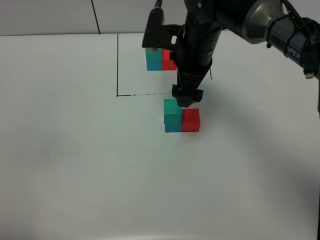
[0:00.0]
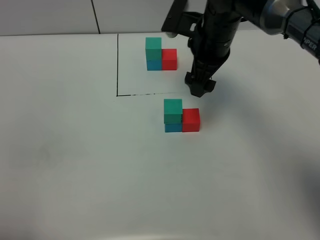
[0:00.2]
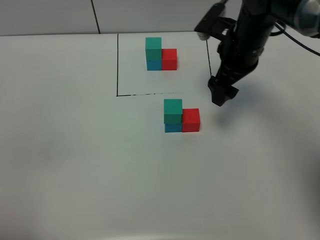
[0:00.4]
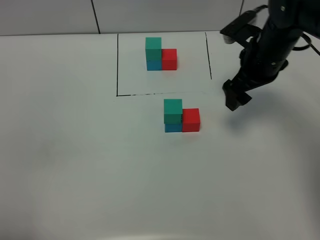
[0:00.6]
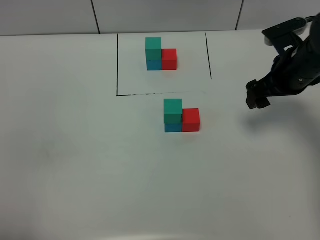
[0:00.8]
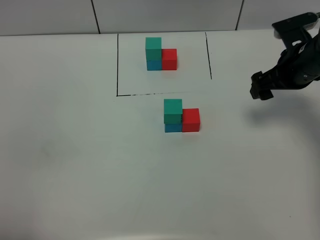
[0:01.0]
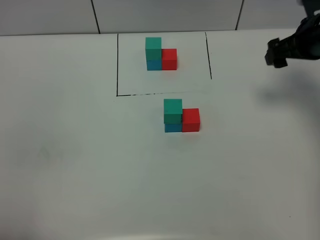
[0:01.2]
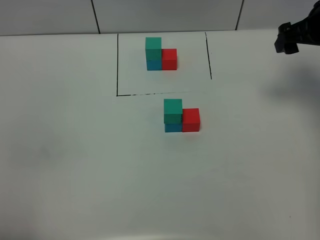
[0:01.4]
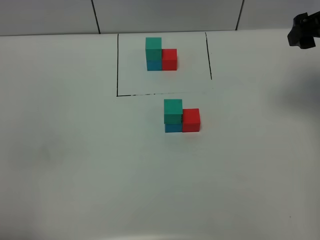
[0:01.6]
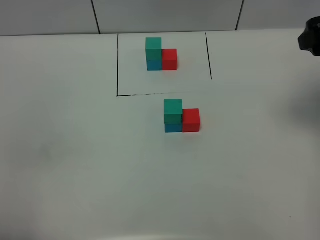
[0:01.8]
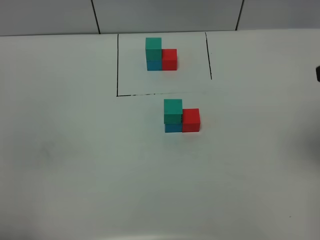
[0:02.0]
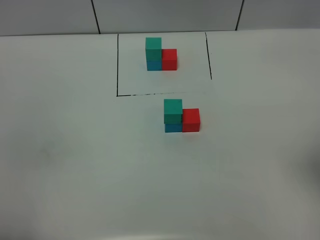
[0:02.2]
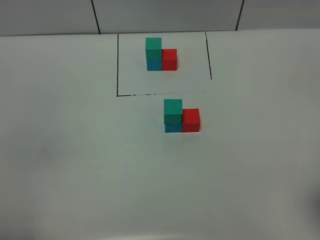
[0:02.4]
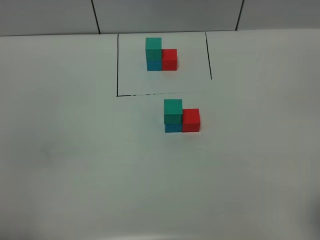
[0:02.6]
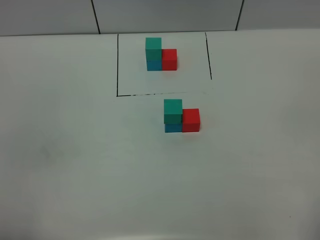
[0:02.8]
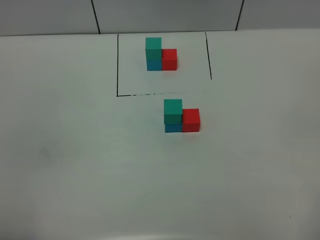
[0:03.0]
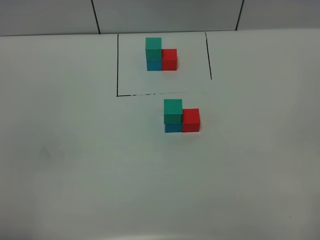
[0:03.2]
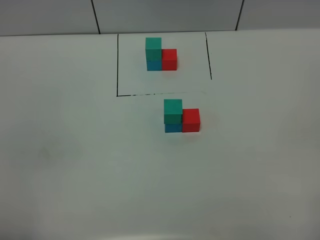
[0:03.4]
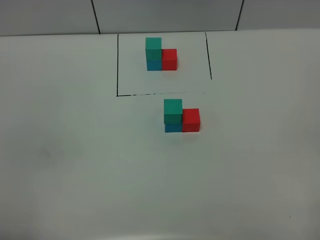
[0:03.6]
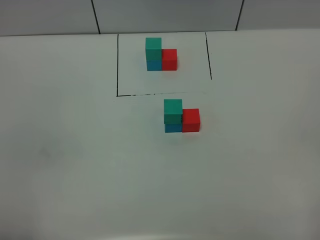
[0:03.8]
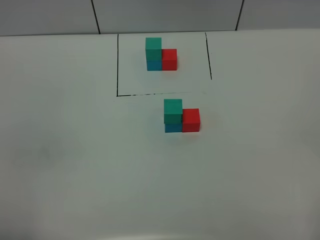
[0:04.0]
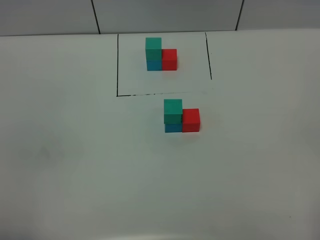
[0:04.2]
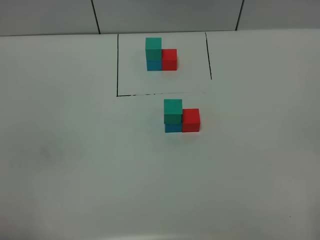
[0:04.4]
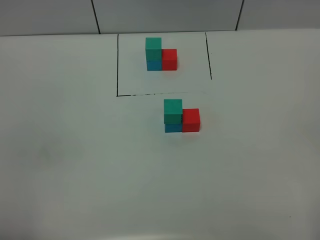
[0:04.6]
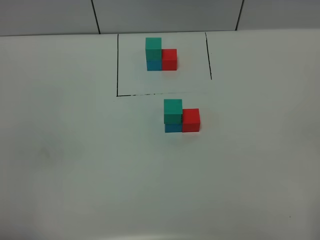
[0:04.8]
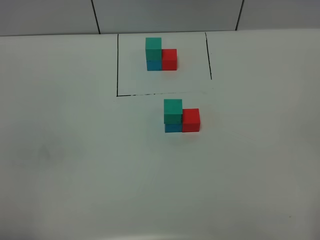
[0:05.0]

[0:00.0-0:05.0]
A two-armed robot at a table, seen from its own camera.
Task of the whole recording: According to the building block template in front, assemble the scattered blocks together.
0:00.0 to 0:01.6: The right gripper shifts some 20 cm to the right.
0:01.6 to 0:03.4: The right gripper heads backward, covering approximately 35 cm.

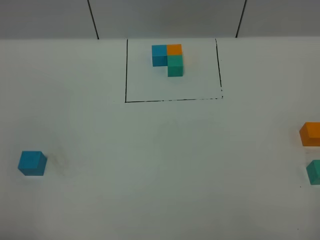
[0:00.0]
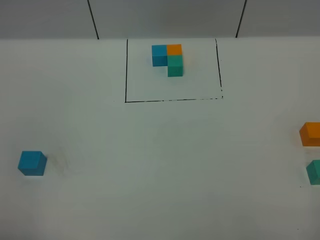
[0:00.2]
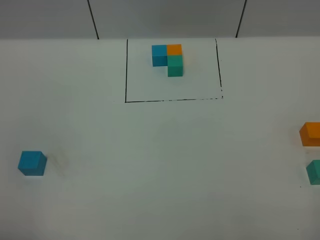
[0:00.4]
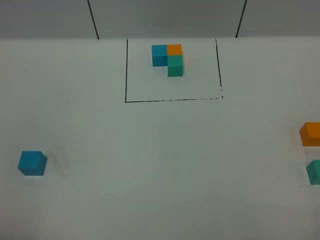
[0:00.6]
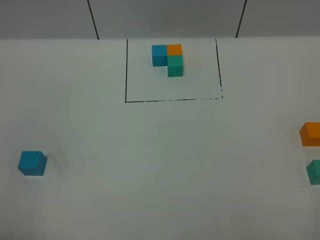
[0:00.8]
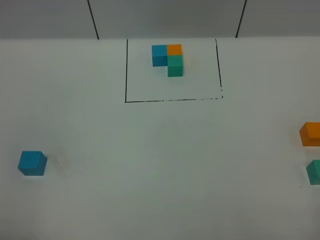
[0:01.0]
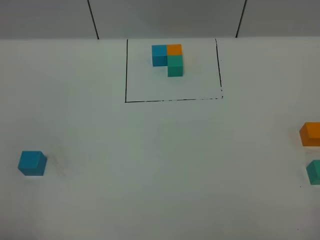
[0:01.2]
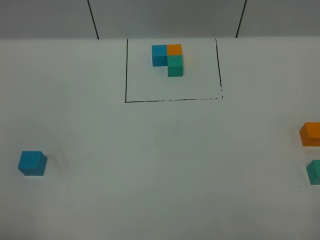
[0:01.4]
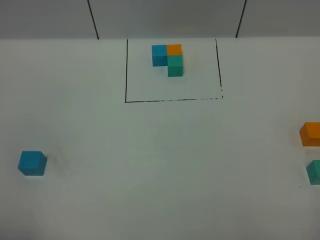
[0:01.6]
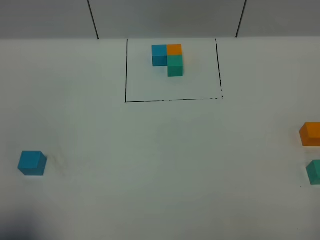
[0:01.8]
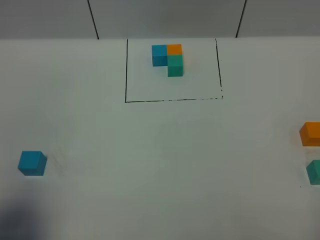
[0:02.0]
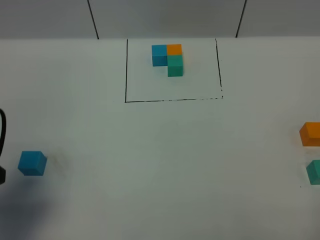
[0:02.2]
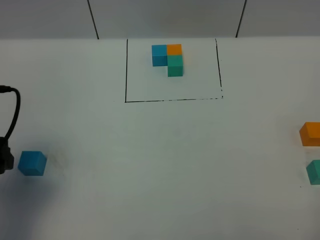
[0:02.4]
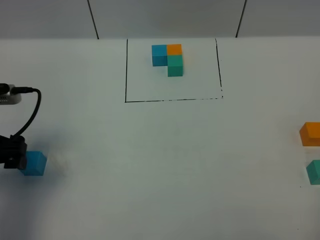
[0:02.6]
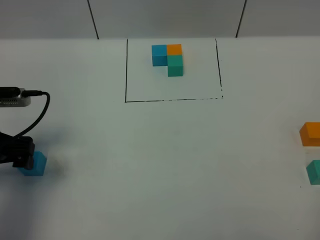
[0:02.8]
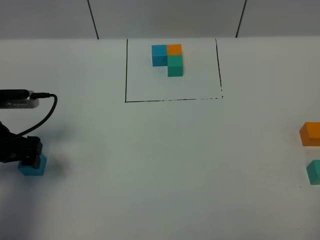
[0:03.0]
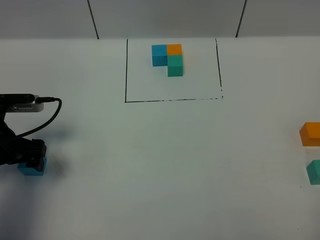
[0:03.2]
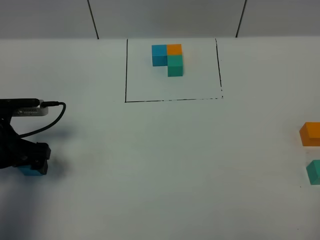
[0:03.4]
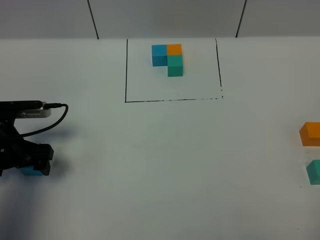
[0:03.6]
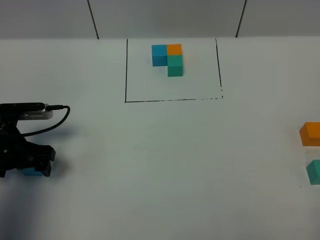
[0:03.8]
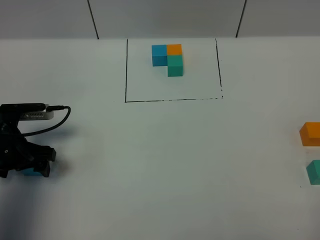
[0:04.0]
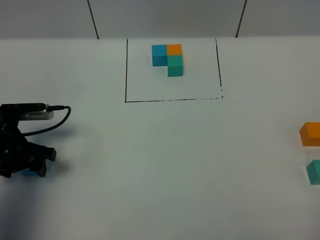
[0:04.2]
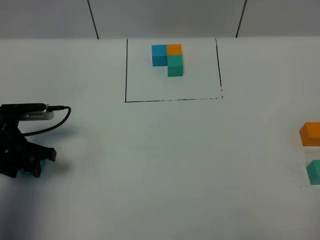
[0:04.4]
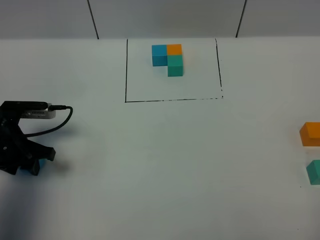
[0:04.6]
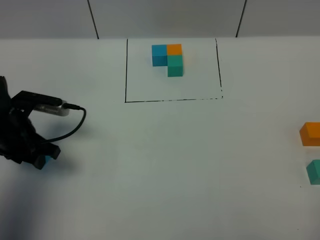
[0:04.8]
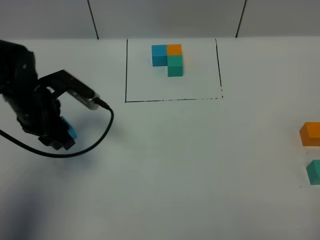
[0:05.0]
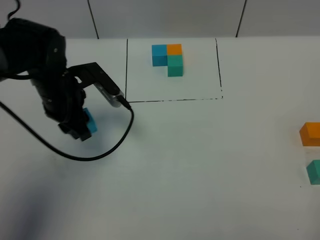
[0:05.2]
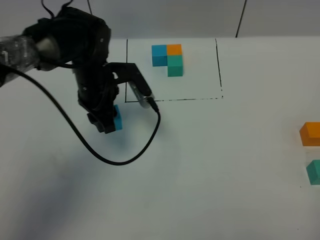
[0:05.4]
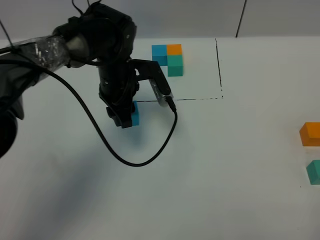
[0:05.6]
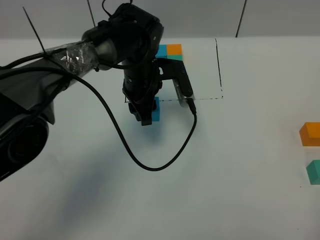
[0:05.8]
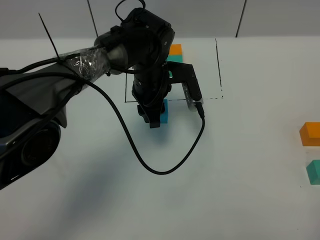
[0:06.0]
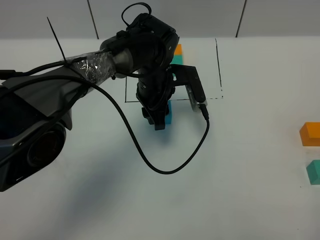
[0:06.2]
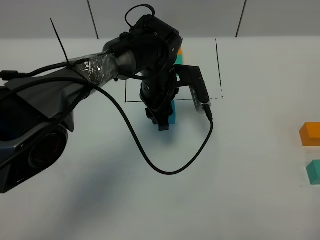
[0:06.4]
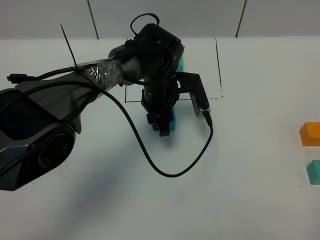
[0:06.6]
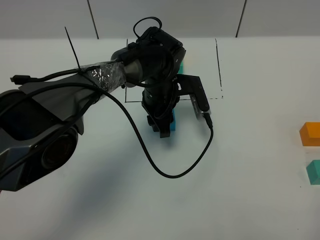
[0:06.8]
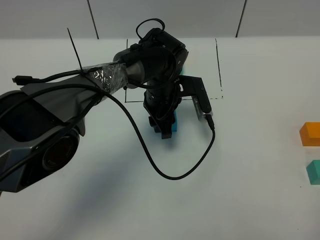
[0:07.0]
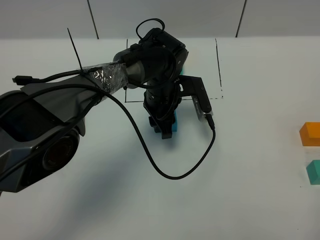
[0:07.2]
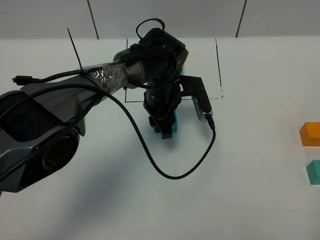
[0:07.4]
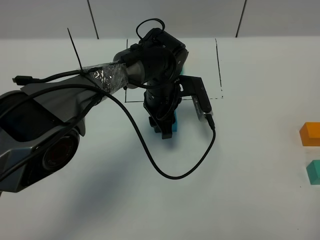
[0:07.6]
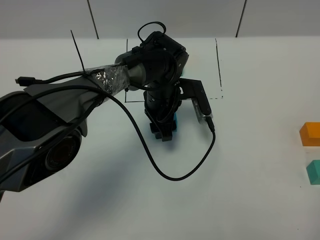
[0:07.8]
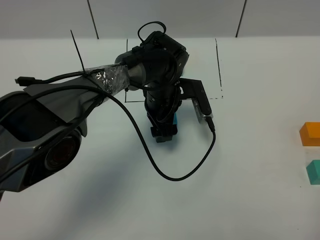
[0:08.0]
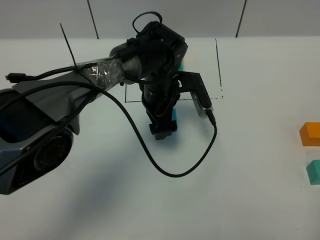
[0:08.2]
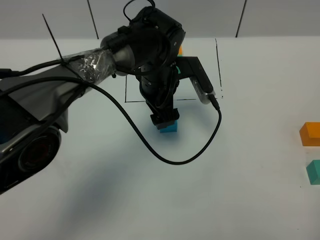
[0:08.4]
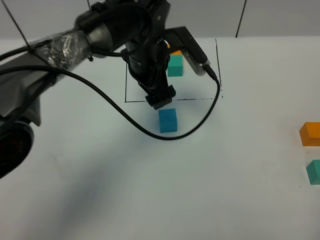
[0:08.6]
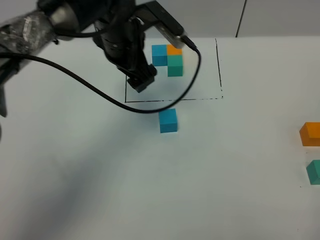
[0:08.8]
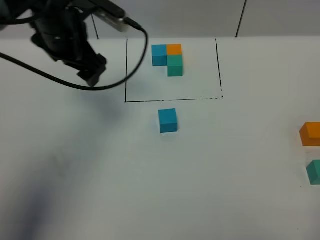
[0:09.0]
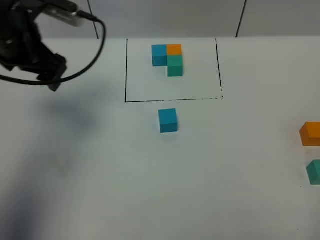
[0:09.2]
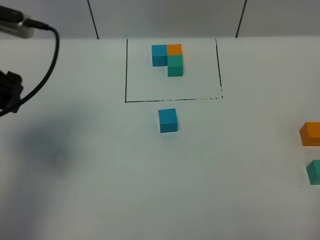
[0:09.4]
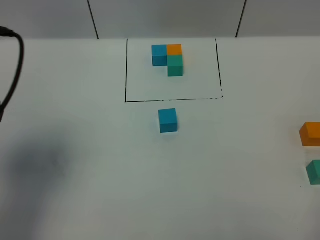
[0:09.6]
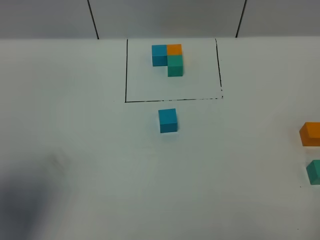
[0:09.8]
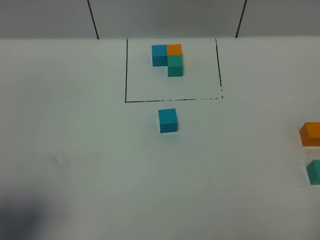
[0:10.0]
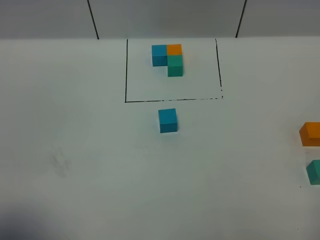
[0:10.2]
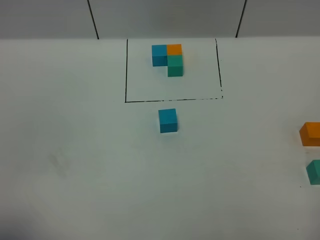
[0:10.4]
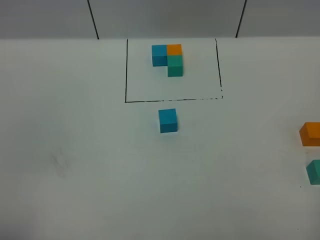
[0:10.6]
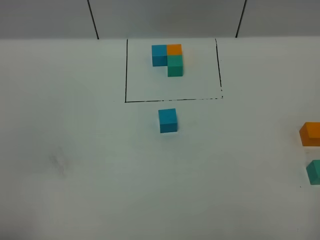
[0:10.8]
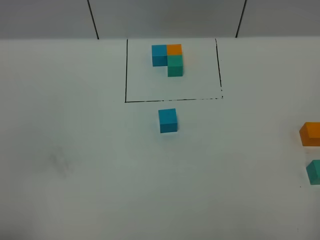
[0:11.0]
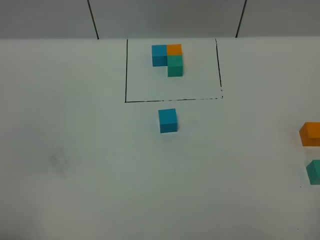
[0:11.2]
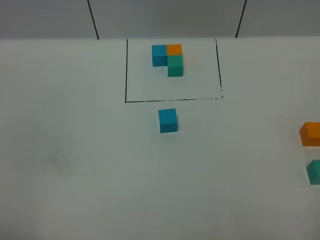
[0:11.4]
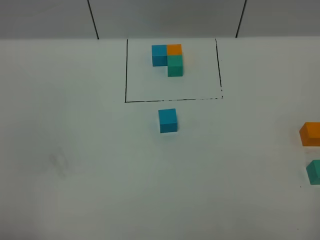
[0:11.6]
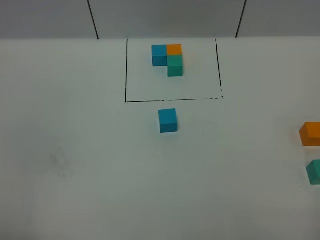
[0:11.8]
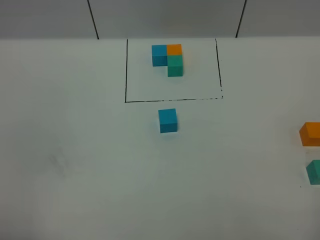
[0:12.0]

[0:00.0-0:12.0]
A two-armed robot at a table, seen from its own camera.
Task of the whole recording: According to the building block template in front, assemble the scattered blocks together.
Step, 0:00.0 to 0:07.6: Put the blue build block in the center of the table.
0:00.0 to 0:01.6: Both grippers stay put.
0:01.6 to 0:03.0: The left gripper shifts some 25 cm forward and downward.
0:03.0 to 0:04.4: The left gripper travels downward by approximately 5 cm, and closes up.
0:04.4 to 0:06.0: The left gripper heads to the right and forward, covering roughly 30 cm.
0:06.0 to 0:07.6: There are only small adjustments of the grippers.
0:07.6 to 0:09.0: The left gripper moves to the left and upward, some 25 cm, and opens its fingers.
0:09.0 to 0:10.4: The left gripper heads backward, covering some 35 cm.

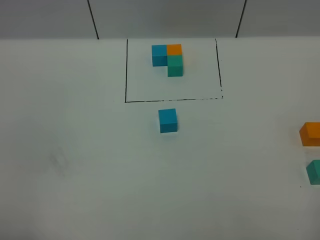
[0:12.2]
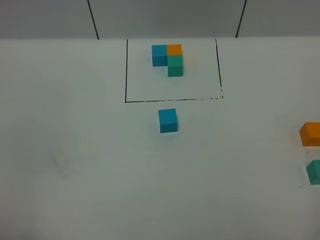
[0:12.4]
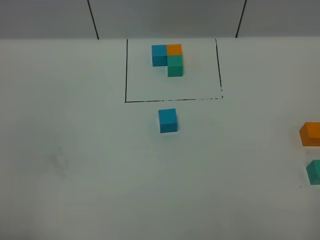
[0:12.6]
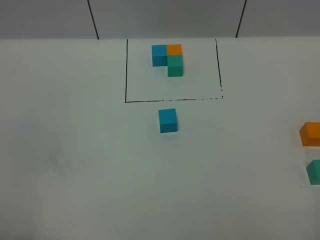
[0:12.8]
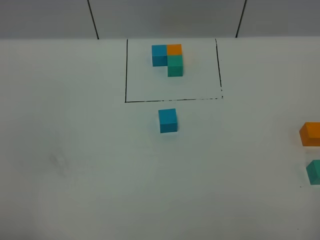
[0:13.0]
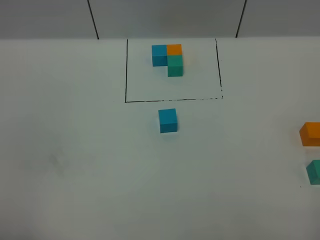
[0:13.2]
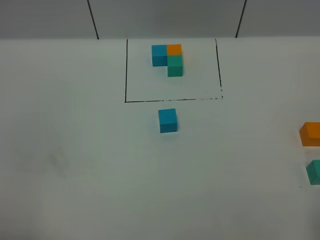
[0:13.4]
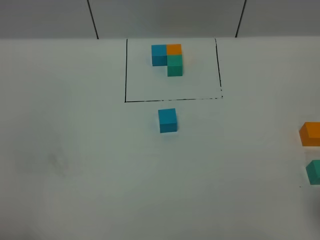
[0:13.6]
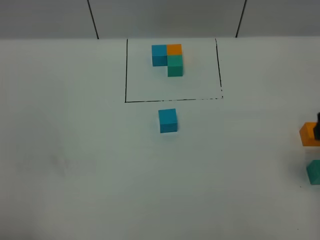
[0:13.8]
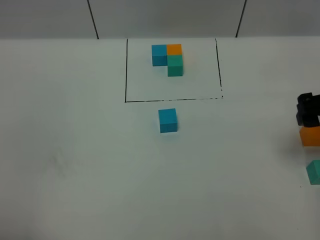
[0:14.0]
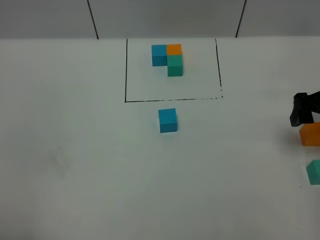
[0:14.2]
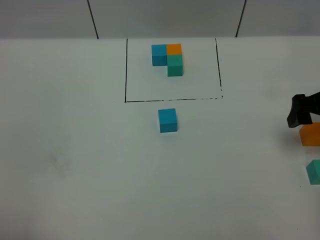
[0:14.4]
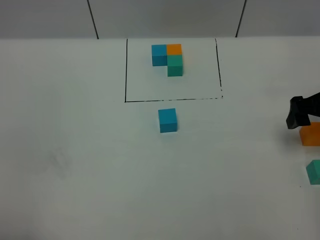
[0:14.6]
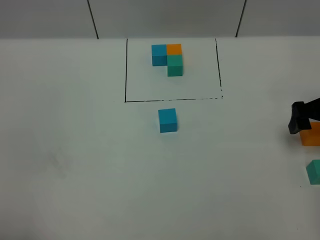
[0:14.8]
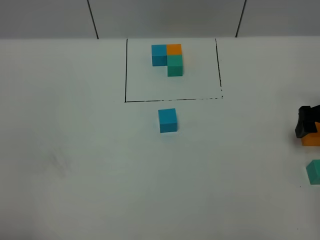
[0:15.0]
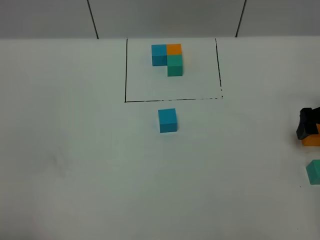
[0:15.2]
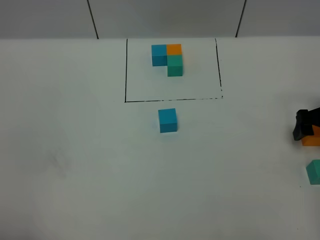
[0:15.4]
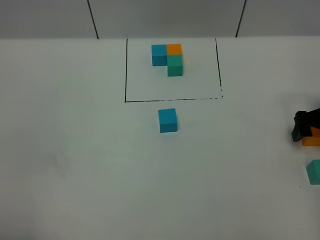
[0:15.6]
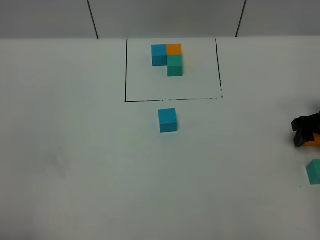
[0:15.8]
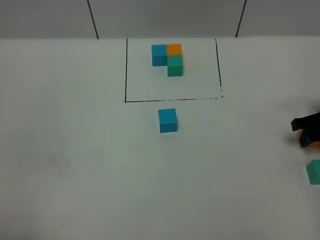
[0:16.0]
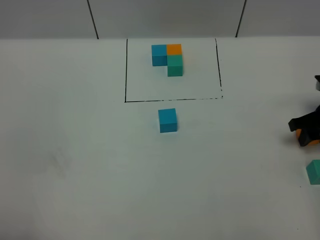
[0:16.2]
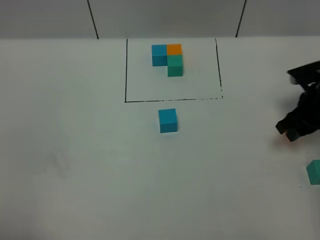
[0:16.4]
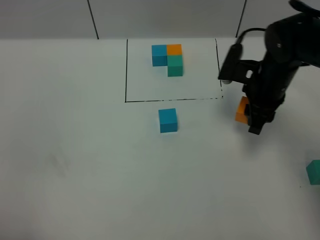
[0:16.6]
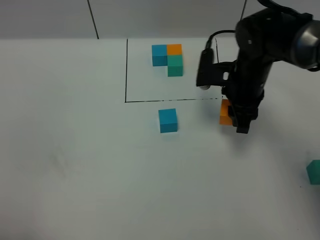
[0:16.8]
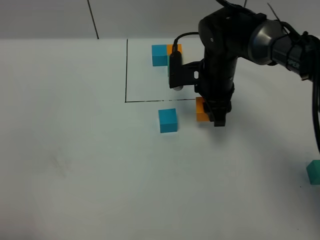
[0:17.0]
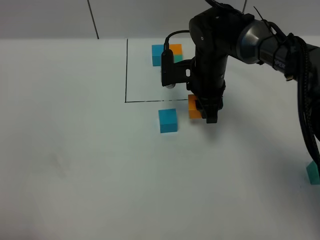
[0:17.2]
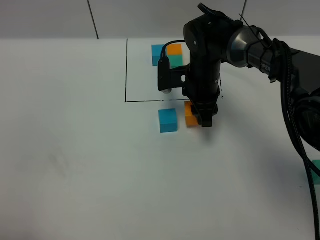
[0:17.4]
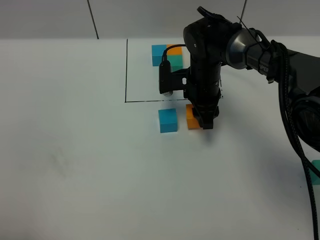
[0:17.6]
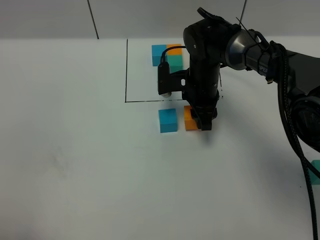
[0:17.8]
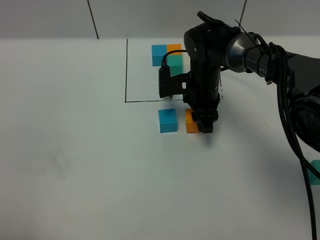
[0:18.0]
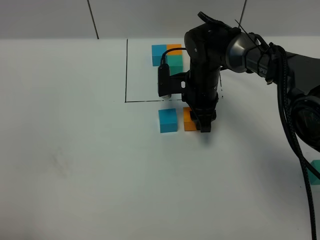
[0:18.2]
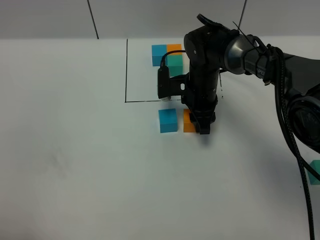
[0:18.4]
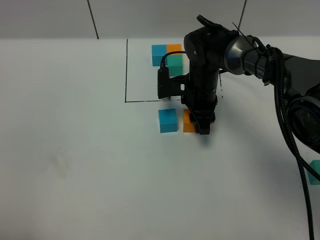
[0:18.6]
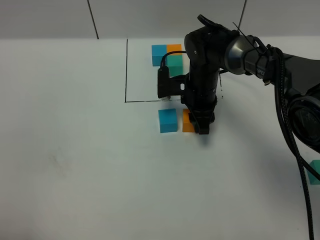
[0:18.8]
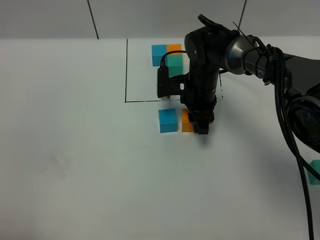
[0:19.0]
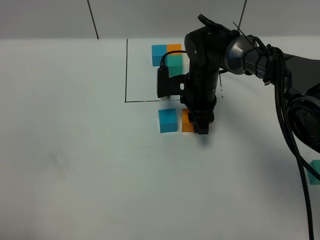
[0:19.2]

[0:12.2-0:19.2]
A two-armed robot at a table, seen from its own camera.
Task of the whole recording: According to the building block template in front, assemble the scattered blocks together.
0:13.6 to 0:15.0: The right gripper moves forward and downward, roughly 25 cm.
0:15.0 to 0:16.4: The right gripper heads to the left, covering some 5 cm, and closes its fingers.
0:16.4 to 0:17.8: The right gripper is displaced to the left by roughly 20 cm.
0:17.8 to 0:19.2: The grippers move only a little.
